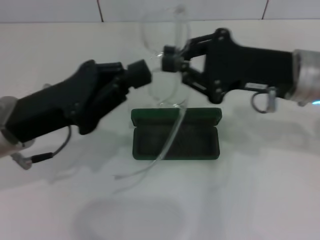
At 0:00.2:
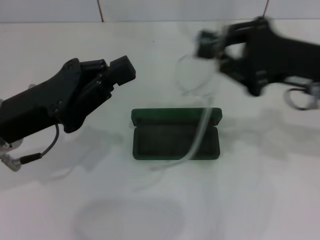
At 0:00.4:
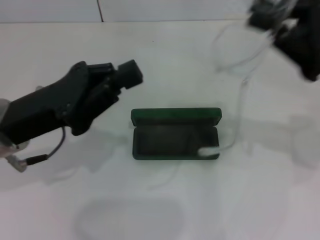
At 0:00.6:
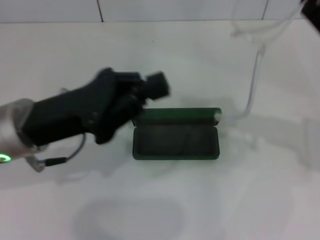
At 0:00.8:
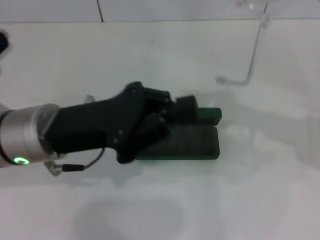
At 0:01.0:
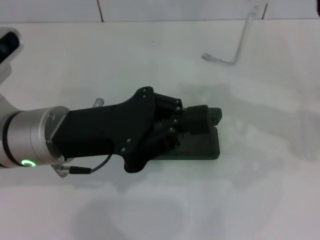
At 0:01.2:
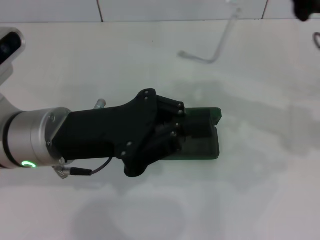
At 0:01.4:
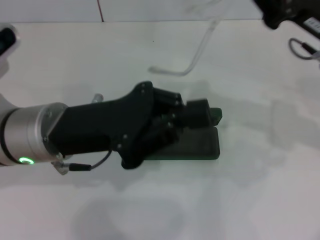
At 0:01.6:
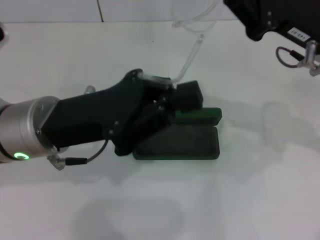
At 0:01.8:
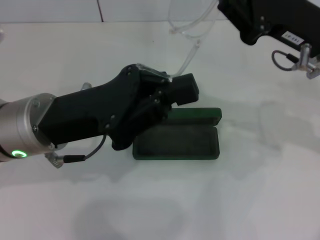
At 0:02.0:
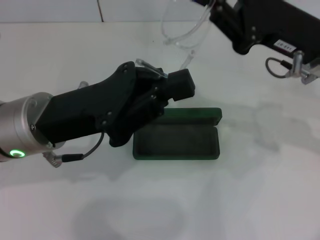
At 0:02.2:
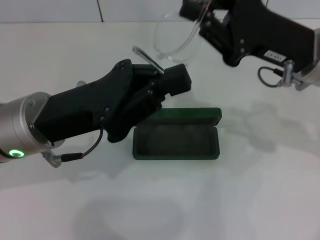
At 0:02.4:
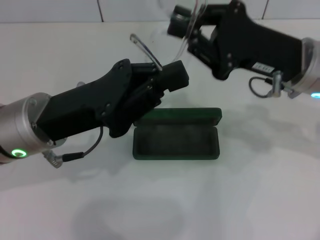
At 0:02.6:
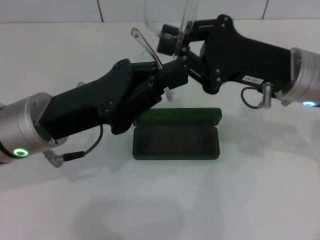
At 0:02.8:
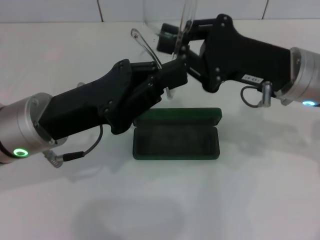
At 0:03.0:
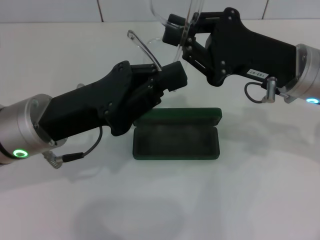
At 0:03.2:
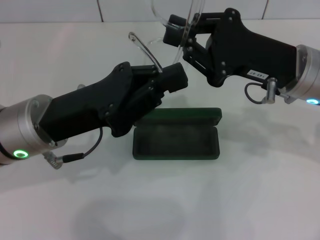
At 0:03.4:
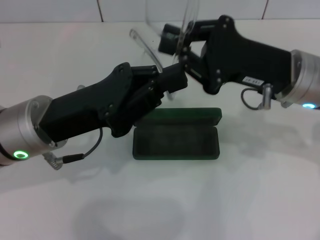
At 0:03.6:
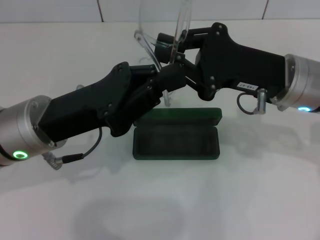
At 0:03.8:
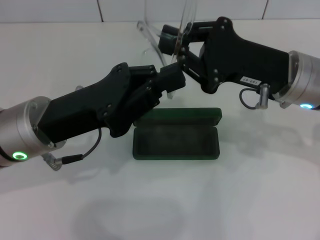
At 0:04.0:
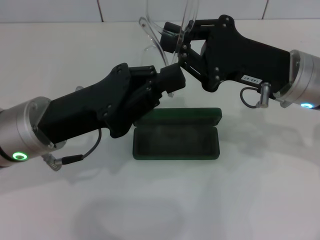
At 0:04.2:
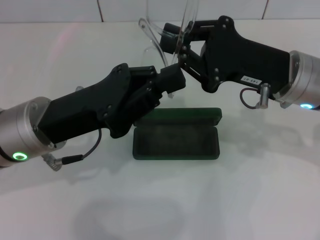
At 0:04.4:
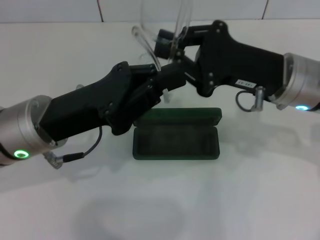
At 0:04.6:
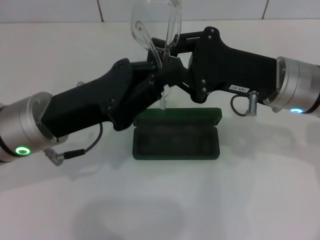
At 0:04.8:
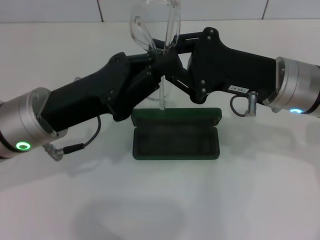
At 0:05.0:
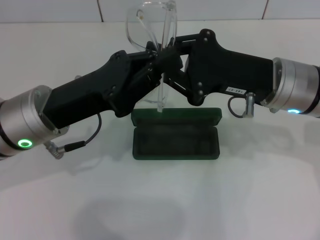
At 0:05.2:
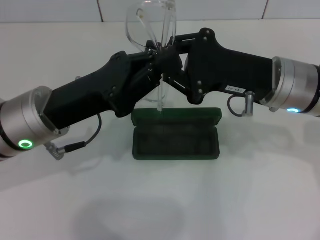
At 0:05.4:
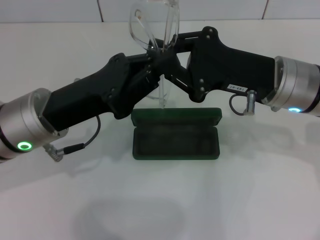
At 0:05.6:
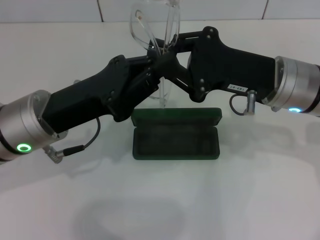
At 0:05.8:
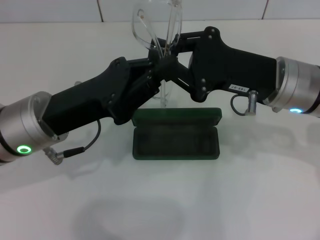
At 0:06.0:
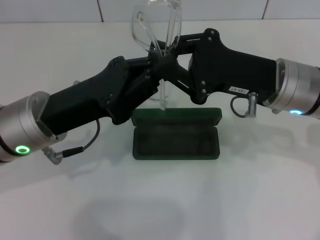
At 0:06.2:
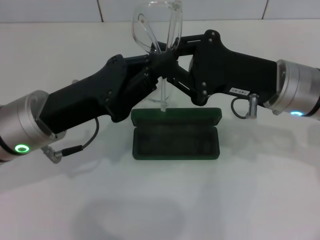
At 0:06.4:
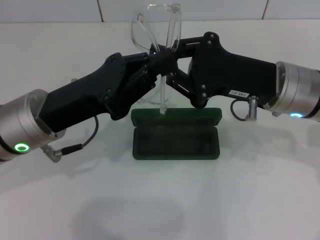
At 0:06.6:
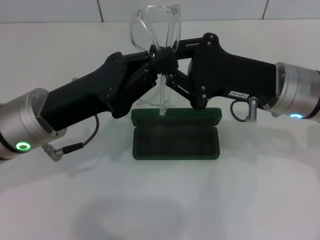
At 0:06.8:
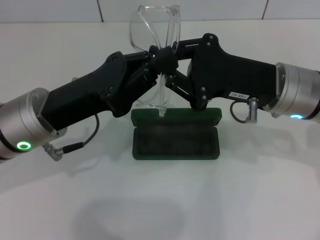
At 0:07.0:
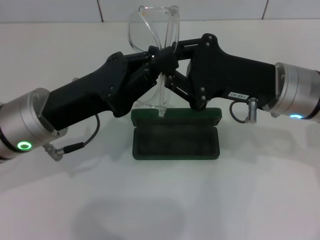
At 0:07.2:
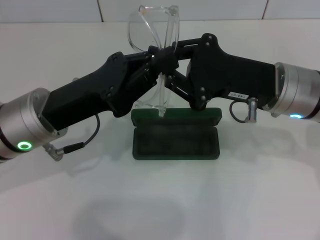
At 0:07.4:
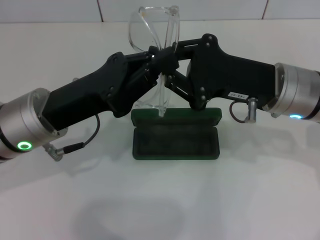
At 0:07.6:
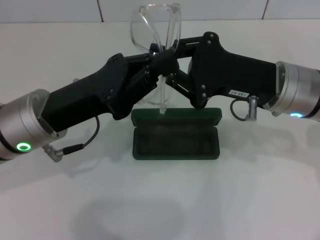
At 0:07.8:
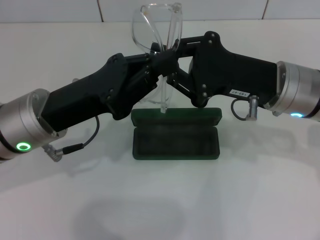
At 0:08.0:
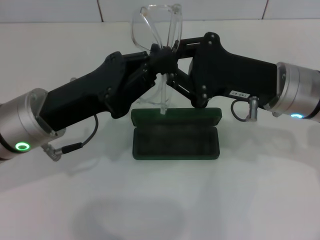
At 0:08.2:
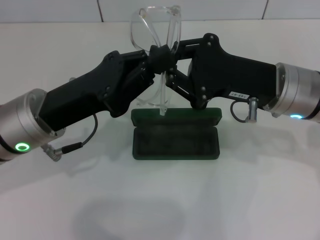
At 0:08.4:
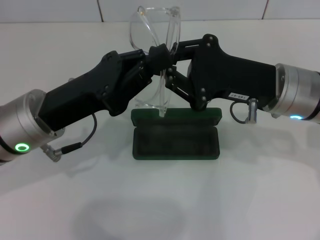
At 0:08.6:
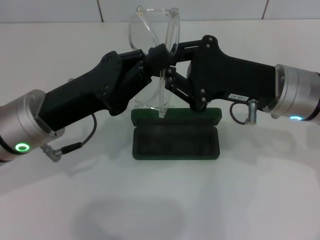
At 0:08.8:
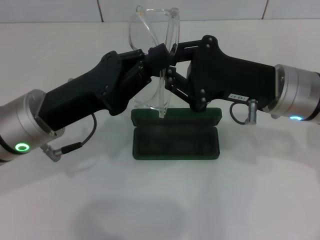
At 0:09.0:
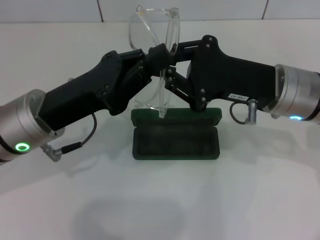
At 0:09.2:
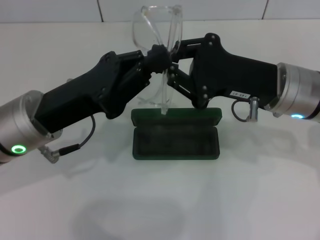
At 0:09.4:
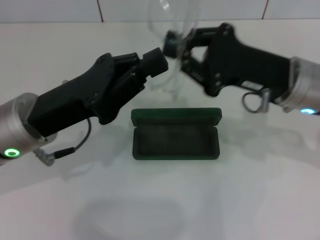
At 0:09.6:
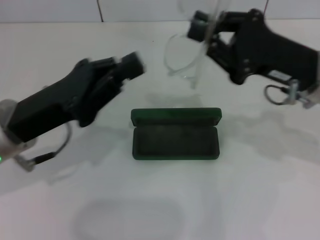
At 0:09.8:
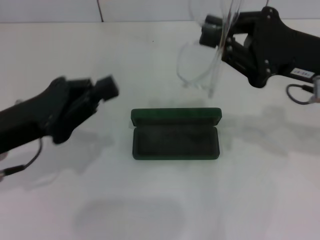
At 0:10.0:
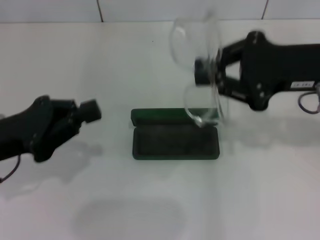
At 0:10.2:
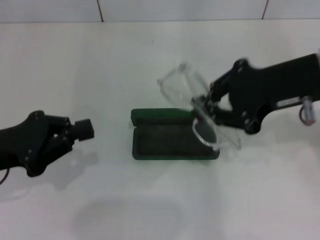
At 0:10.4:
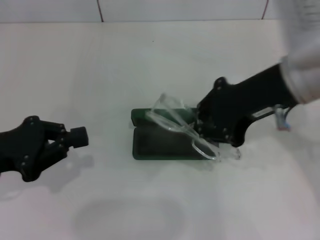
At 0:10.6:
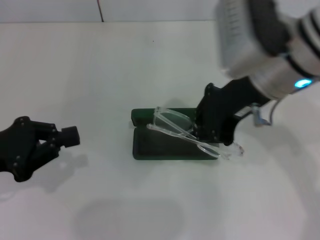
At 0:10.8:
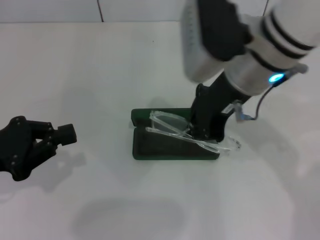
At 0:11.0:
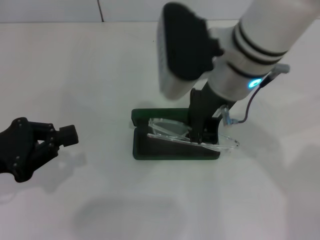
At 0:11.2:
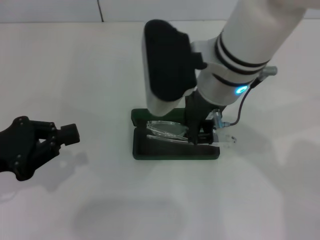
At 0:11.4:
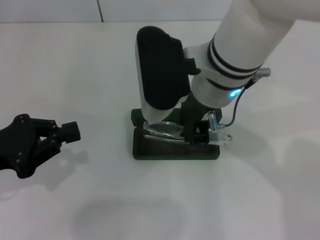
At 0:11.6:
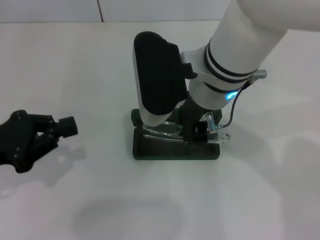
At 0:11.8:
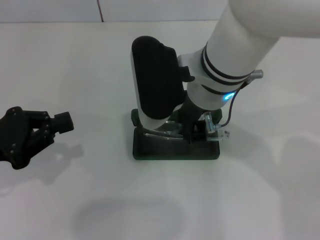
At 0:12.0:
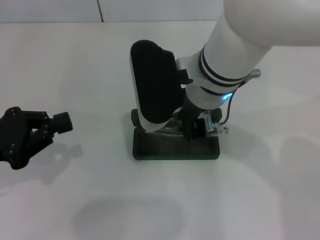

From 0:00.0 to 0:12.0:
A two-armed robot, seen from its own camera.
Step, from 0:00.0 to 0:05.0: Fold the frame with your left hand.
From 0:00.0 to 0:01.6: The right gripper moves roughly 10 cm to the right and comes back.
From 0:03.0 to 0:04.4: The two grippers keep their place.
From 0:04.4 to 0:06.0: Both grippers stay about where they are.
From 0:06.0 to 0:09.0: The two grippers keep their place.
From 0:09.0 to 0:10.4: The left gripper goes approximately 10 cm to the left, while the right gripper heads upward, covering approximately 10 cm.
From 0:10.4 to 0:12.0: The right gripper is displaced to the left by some 10 cm.

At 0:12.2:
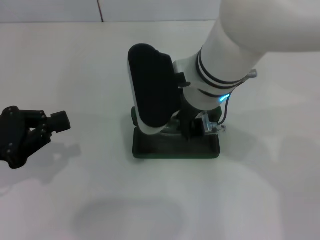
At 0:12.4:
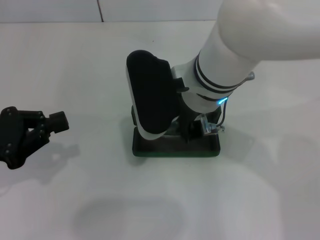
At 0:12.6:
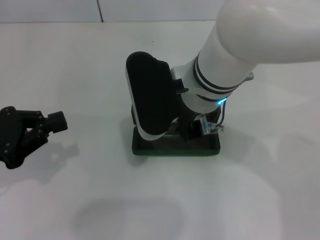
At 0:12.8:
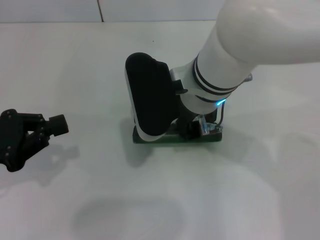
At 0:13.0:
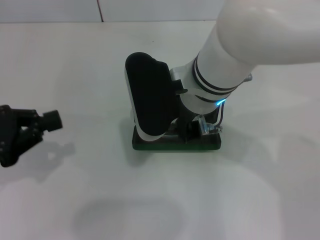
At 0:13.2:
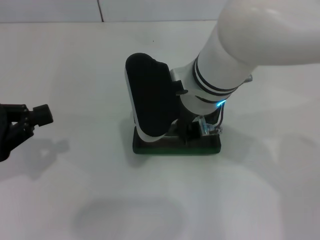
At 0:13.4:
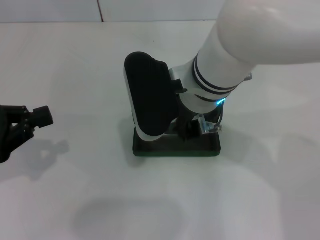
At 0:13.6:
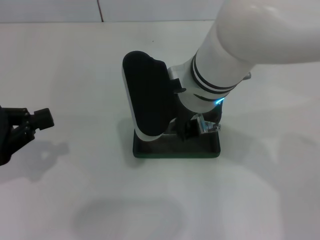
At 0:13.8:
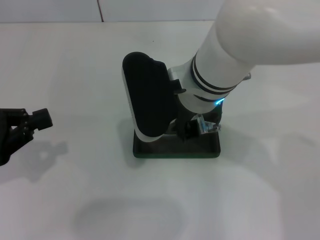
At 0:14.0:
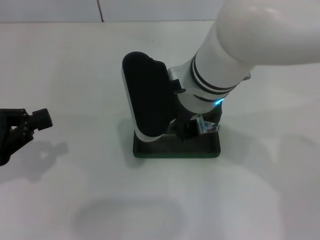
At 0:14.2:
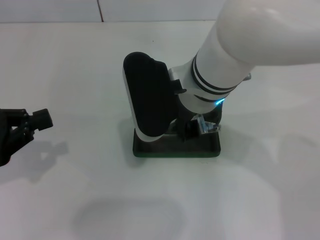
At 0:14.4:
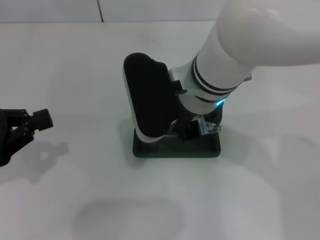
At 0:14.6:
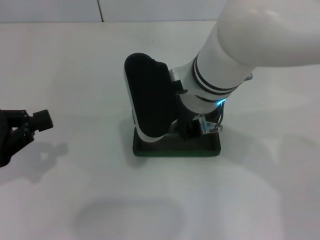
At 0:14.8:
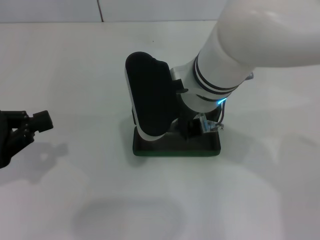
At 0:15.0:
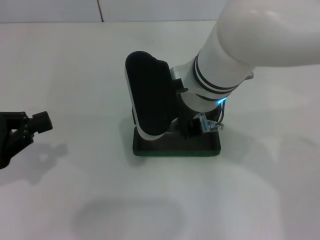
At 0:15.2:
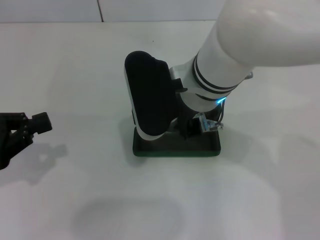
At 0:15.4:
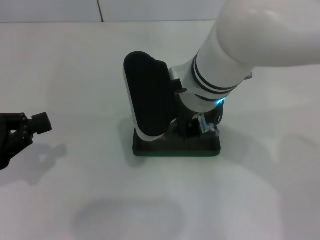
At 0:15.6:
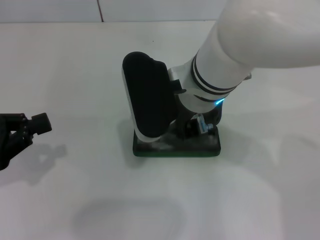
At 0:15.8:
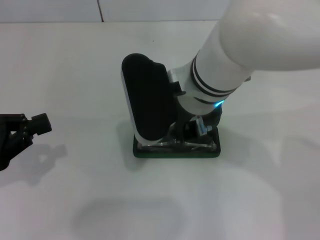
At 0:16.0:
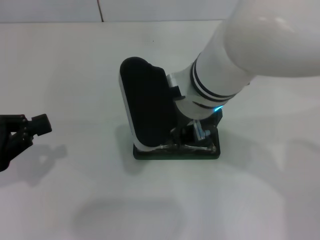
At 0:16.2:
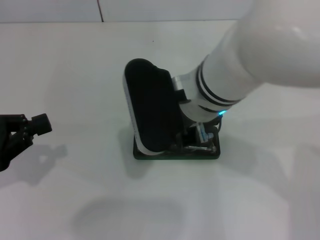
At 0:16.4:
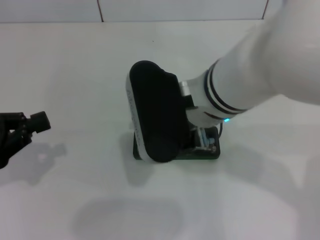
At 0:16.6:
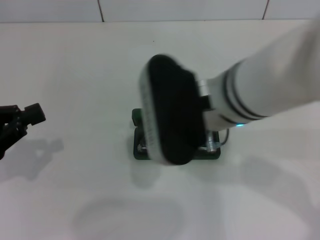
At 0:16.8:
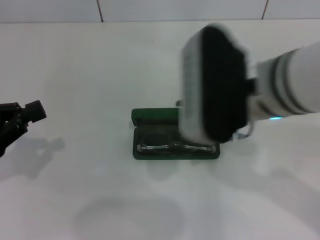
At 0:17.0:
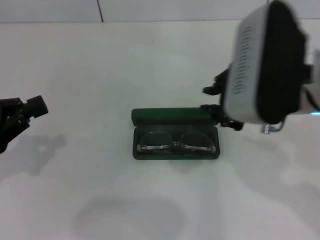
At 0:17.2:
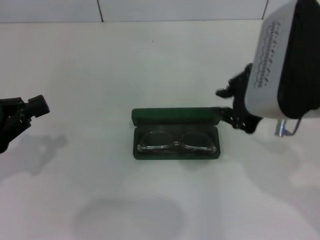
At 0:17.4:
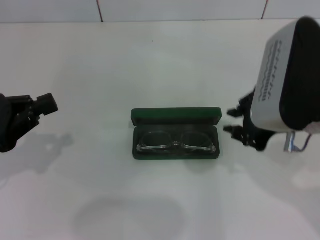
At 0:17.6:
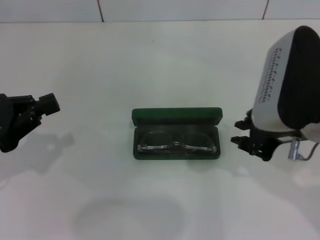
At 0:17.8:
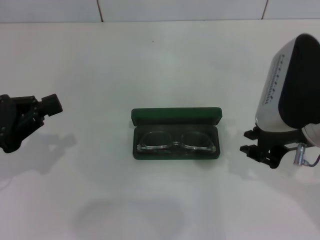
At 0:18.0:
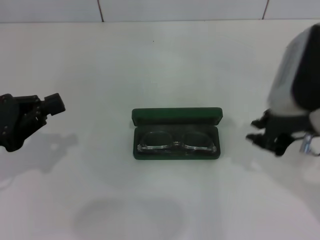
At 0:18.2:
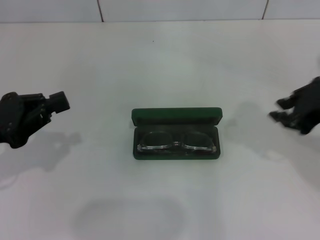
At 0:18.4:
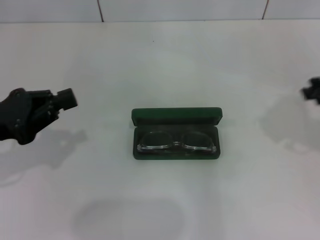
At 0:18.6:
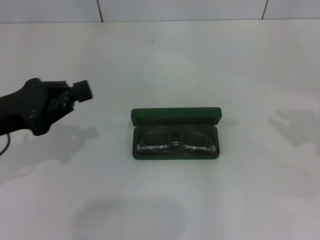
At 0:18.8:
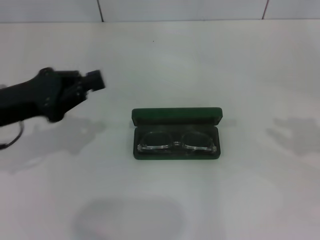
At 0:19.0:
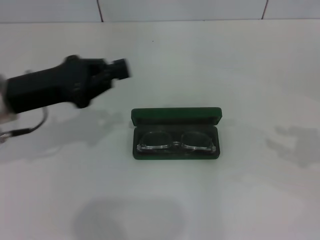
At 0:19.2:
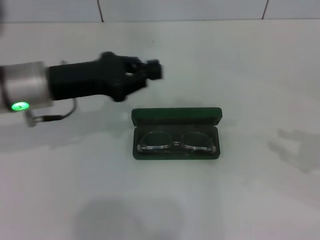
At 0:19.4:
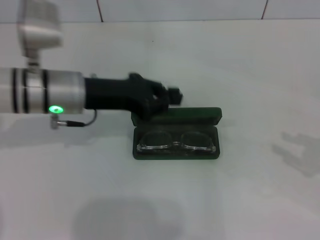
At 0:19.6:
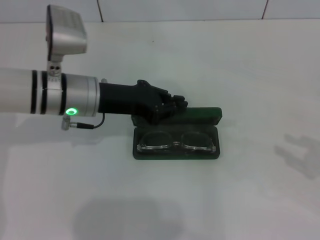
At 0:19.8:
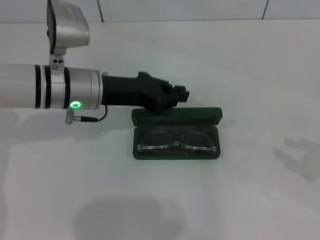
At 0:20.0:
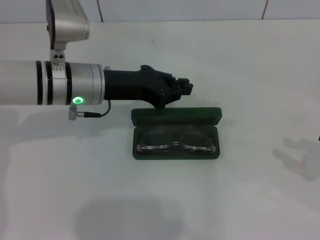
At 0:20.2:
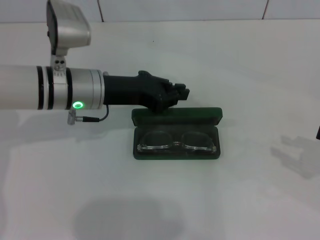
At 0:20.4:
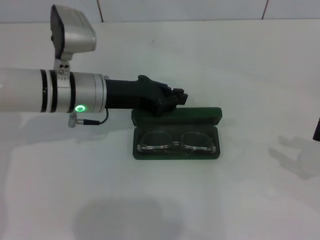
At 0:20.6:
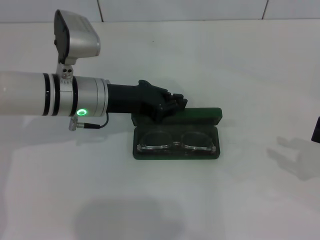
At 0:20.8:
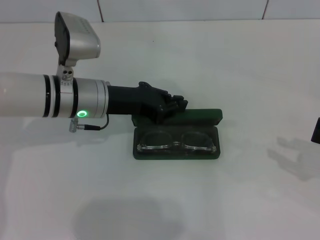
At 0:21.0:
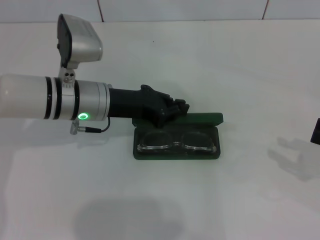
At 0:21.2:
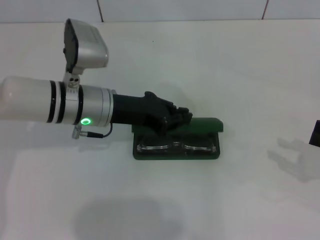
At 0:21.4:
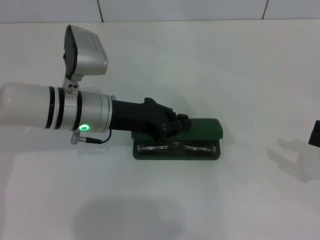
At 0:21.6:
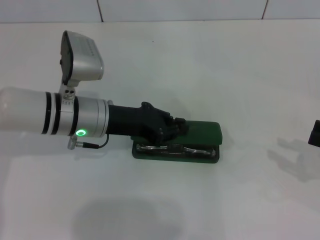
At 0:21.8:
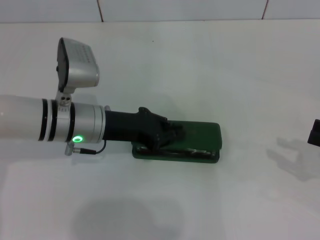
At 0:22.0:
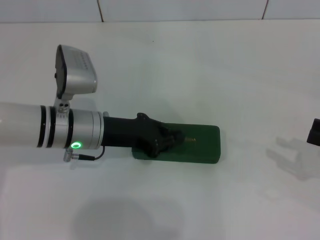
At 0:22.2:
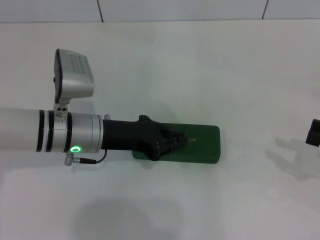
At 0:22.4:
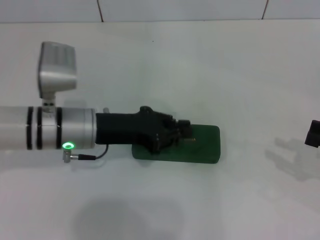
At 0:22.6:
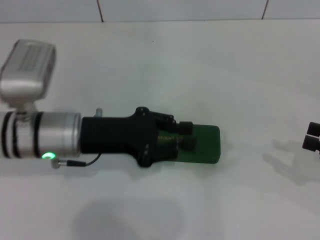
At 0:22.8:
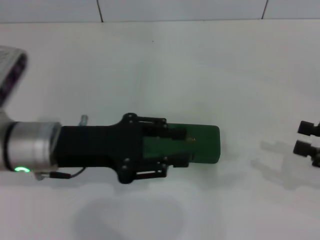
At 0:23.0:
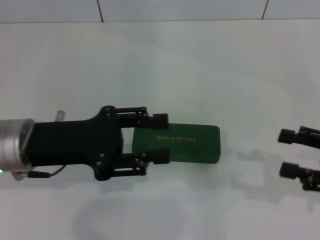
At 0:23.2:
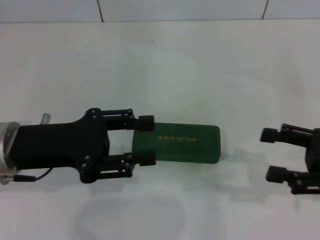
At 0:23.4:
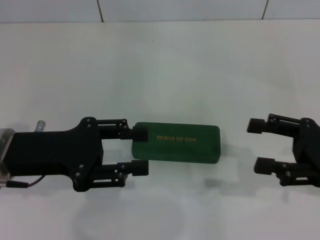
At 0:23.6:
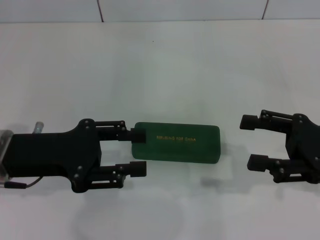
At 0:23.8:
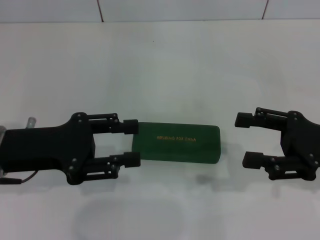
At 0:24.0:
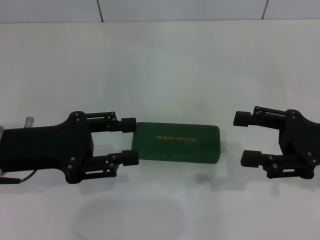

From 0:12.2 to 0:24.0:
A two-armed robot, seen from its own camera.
Step, from 0:12.2 to 0:15.8: Put the glasses into the case with your right hand.
Step, from 0:16.0 to 0:22.0: Close the glasses case with your left hand.
From 0:12.2 to 0:13.6: The grippers make only small movements.
From 0:13.6 to 0:15.2: Both grippers stay about where they are.
From 0:15.2 to 0:16.6: The right gripper moves backward, approximately 5 cm.
From 0:16.6 to 0:18.2: The right gripper heads to the right, covering roughly 20 cm.
From 0:18.2 to 0:19.6: The left gripper shifts approximately 20 cm to the right and forward. Meanwhile the right gripper is displaced to the right and downward by roughly 20 cm.
From 0:19.6 to 0:21.0: The grippers move only a little.
From 0:21.0 to 0:22.6: The left gripper heads backward, covering some 5 cm.
From 0:22.6 to 0:24.0: The two grippers go roughly 10 cm to the left. The left gripper opens; the right gripper opens its fingers.
